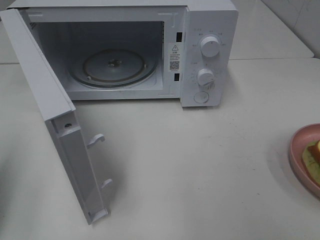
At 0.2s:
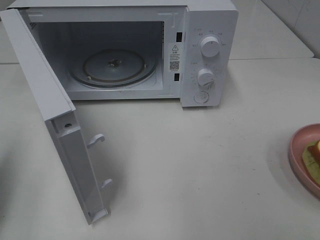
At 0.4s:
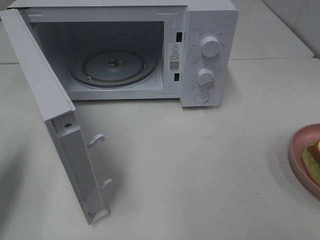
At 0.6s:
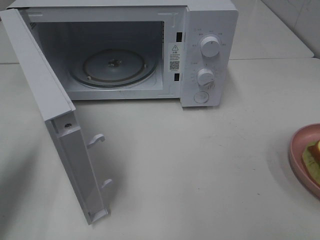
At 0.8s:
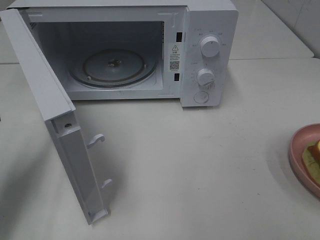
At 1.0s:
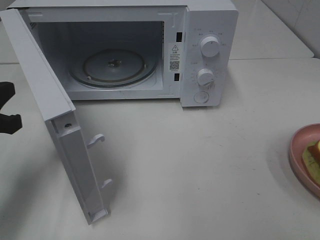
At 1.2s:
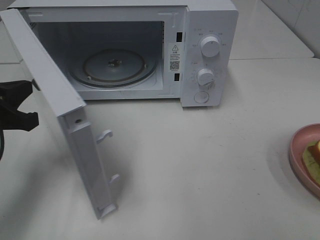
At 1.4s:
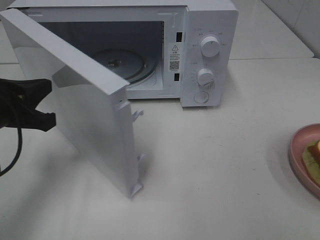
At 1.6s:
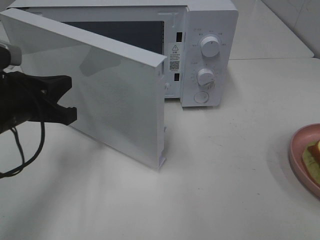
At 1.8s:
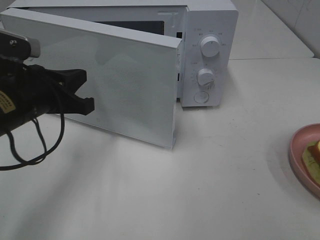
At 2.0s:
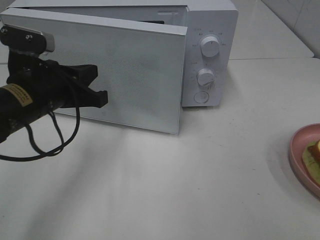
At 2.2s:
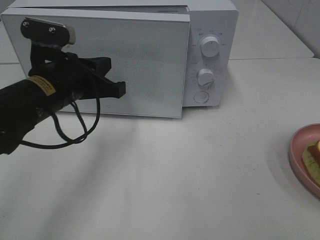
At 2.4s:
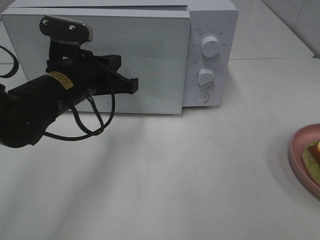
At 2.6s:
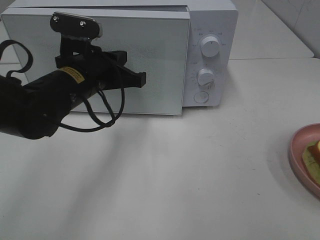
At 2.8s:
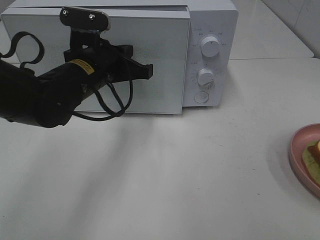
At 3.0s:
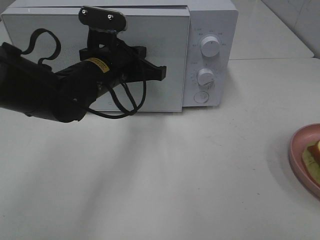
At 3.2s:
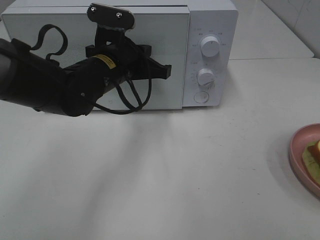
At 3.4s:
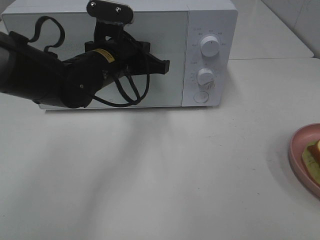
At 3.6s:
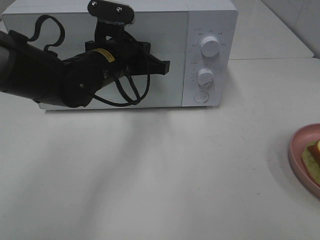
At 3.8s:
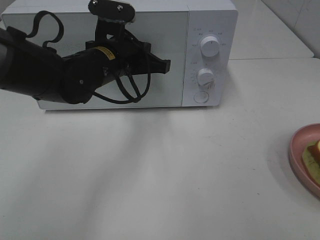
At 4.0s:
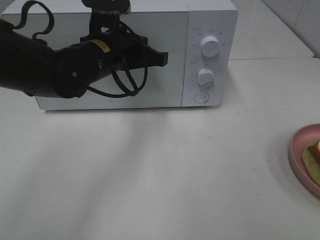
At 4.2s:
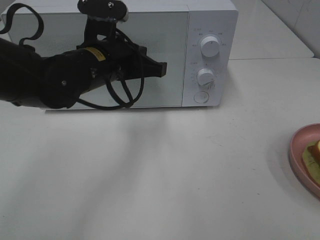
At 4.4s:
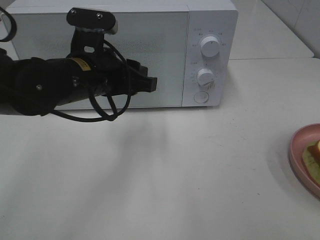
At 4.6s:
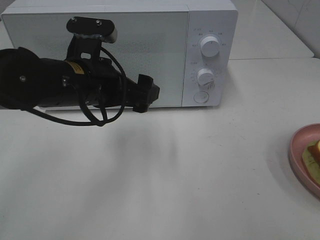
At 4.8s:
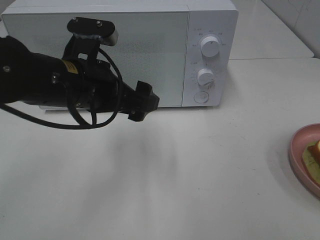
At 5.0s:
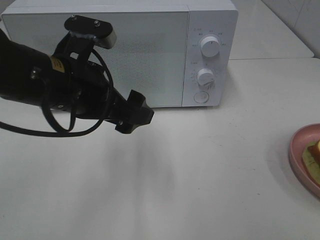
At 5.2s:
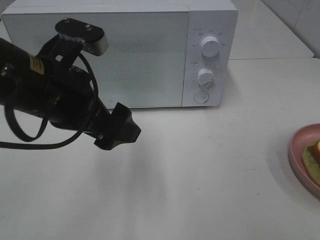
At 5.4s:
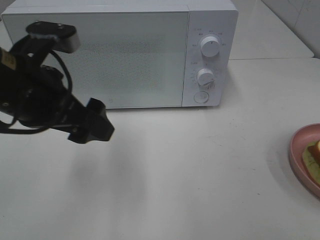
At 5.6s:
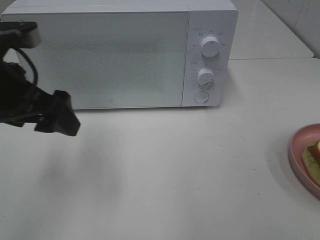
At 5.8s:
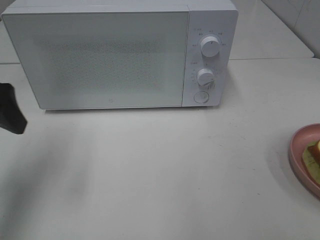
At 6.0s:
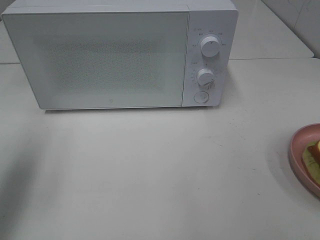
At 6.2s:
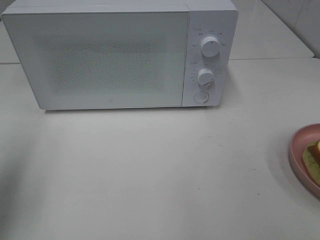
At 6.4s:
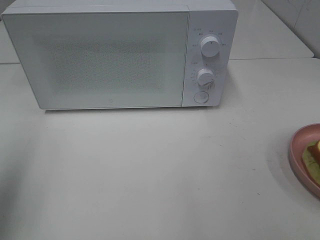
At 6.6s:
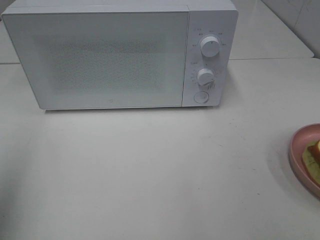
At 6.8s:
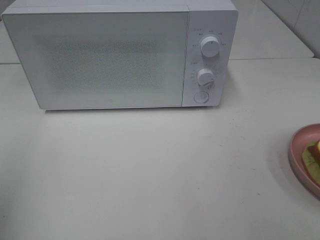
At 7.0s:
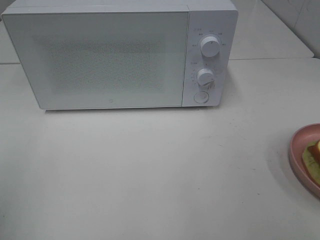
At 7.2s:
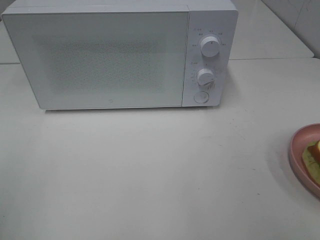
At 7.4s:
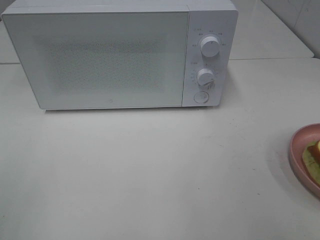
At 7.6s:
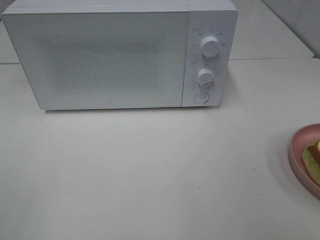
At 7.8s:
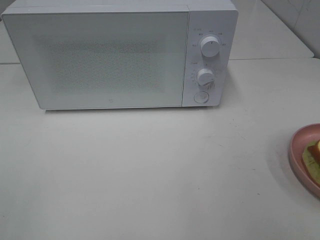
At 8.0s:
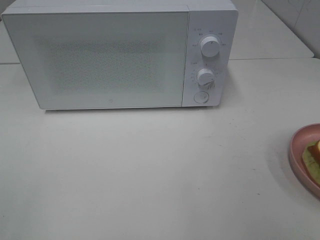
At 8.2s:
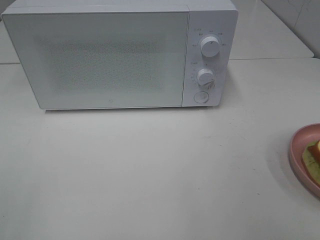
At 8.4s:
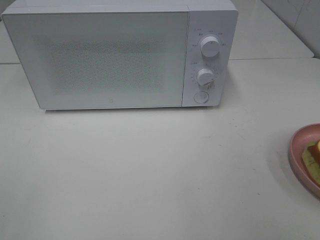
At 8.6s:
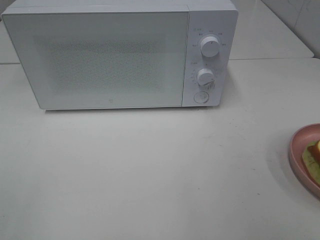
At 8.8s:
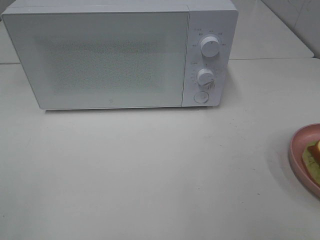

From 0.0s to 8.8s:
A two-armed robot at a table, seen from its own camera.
Task of the whole recording: Heat Sandwich.
Step, from 0.0s to 4.2s: Left hand: close the microwave door.
From 0.0s to 1.4s: The left gripper is displaced to the right, forward and downward by about 15 cm.
From 1.4s to 3.0s: The left gripper goes roughly 20 cm to the right and forward.
From 3.0s to 4.4s: The left gripper ends up roughly 5 cm from where it was, and opens.
From 4.4s to 5.8s: The left gripper heads to the left and upward, covering about 20 cm, and opens its fingers.
From 5.8s to 7.4s: The left gripper goes some 20 cm backward.

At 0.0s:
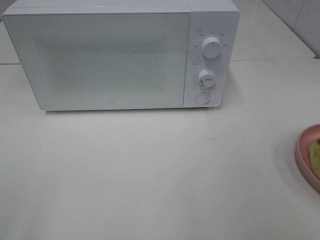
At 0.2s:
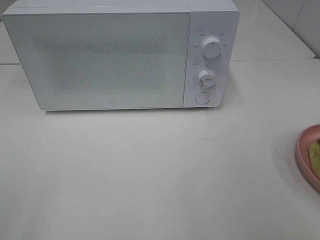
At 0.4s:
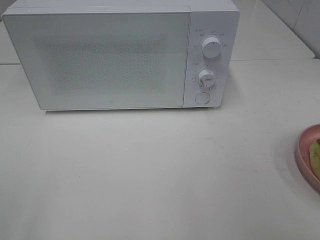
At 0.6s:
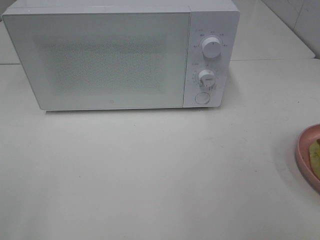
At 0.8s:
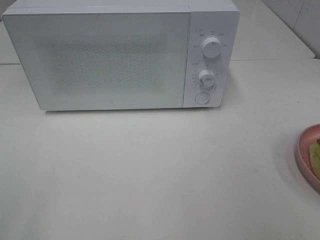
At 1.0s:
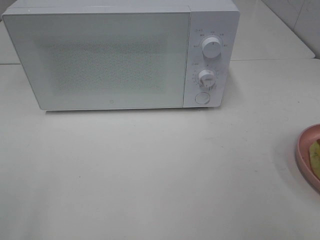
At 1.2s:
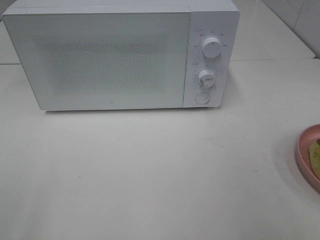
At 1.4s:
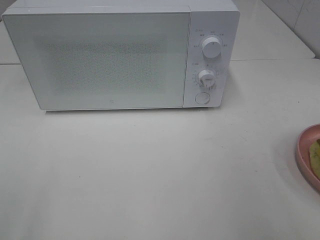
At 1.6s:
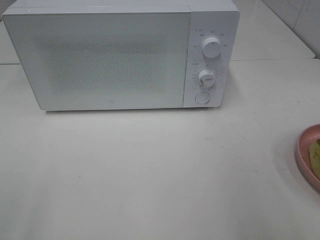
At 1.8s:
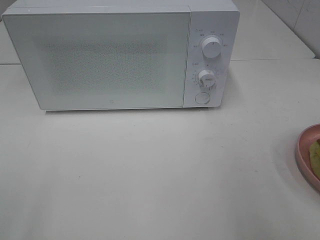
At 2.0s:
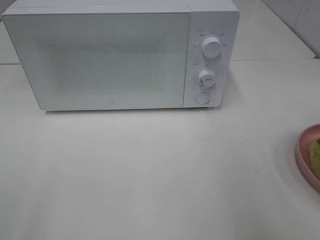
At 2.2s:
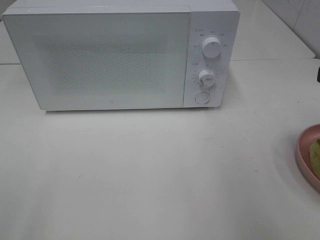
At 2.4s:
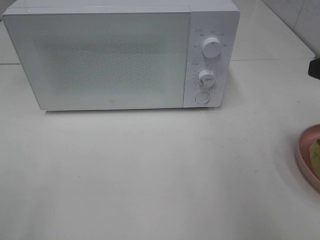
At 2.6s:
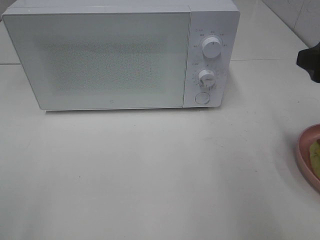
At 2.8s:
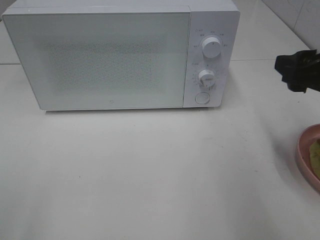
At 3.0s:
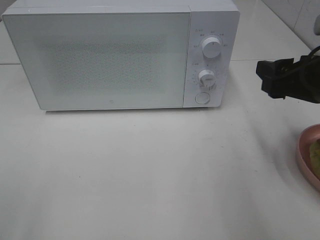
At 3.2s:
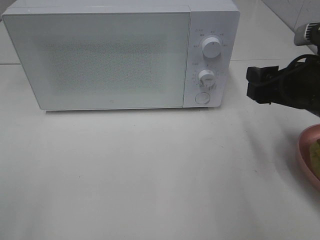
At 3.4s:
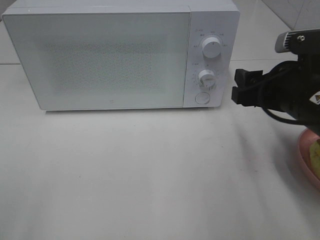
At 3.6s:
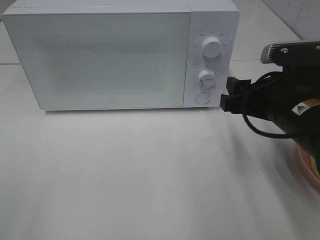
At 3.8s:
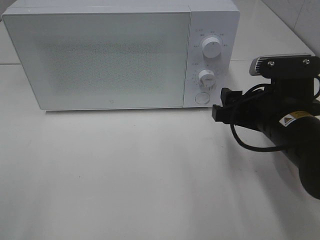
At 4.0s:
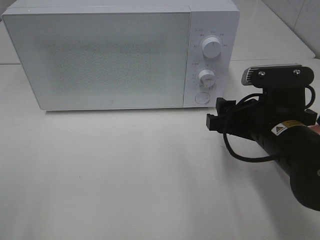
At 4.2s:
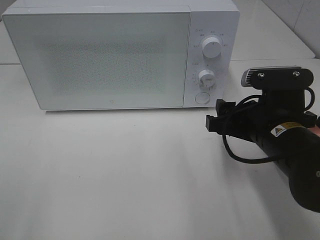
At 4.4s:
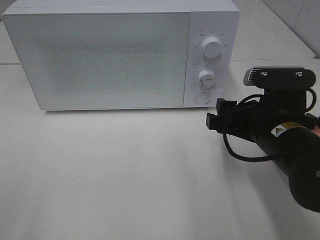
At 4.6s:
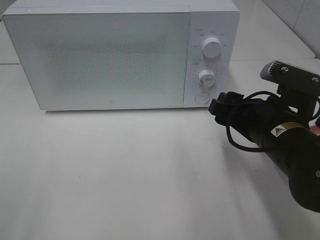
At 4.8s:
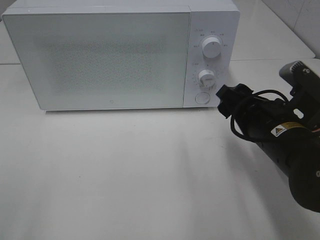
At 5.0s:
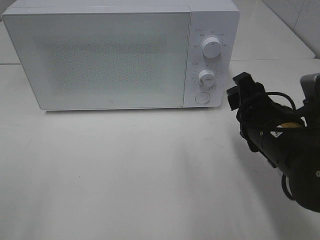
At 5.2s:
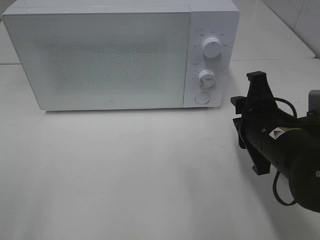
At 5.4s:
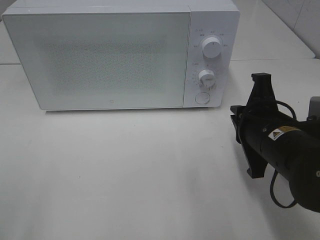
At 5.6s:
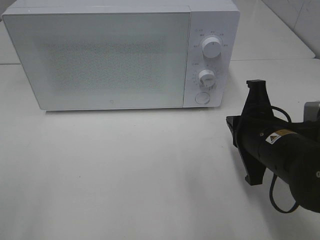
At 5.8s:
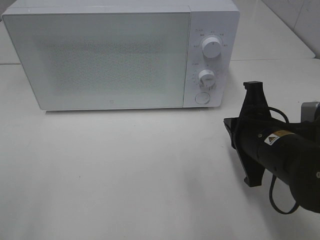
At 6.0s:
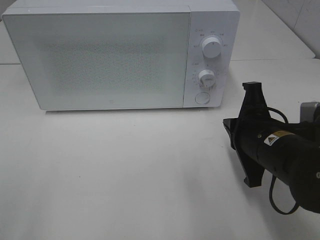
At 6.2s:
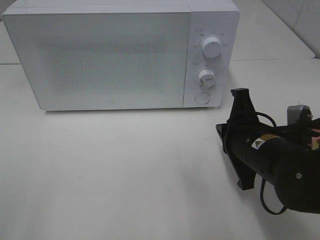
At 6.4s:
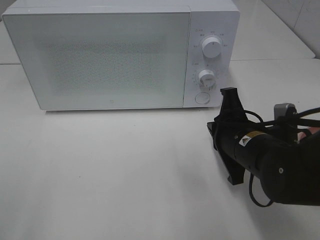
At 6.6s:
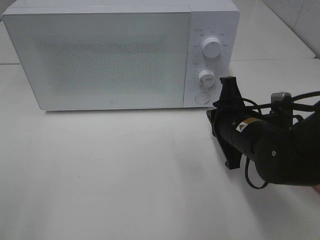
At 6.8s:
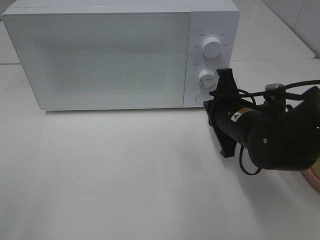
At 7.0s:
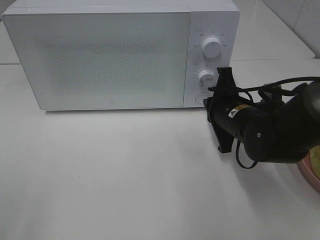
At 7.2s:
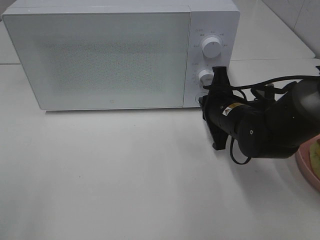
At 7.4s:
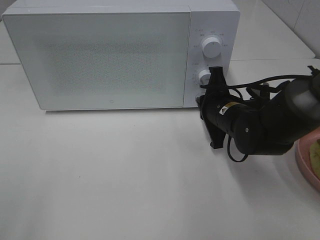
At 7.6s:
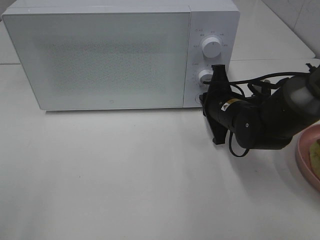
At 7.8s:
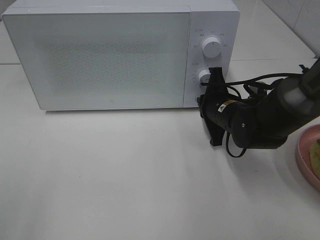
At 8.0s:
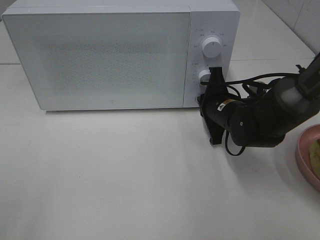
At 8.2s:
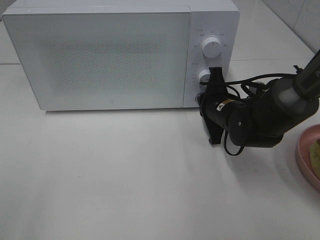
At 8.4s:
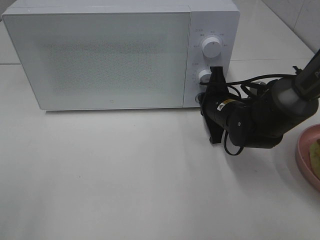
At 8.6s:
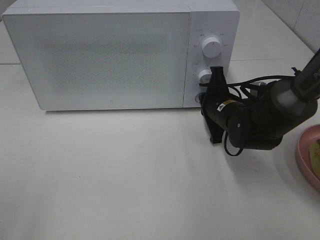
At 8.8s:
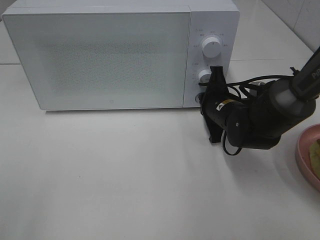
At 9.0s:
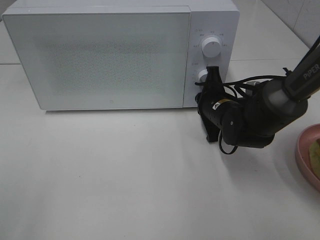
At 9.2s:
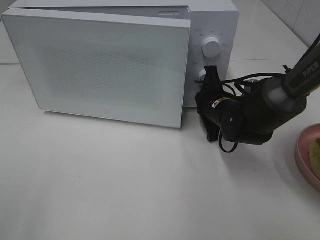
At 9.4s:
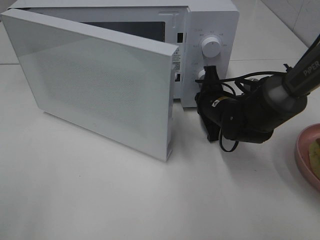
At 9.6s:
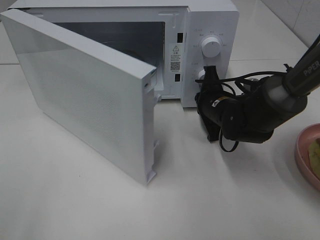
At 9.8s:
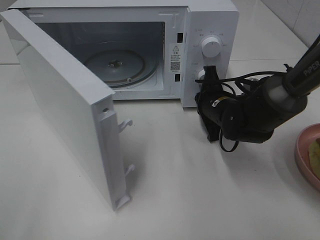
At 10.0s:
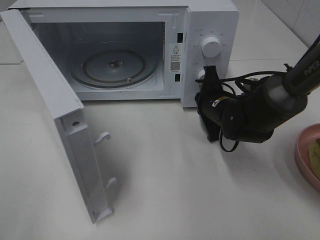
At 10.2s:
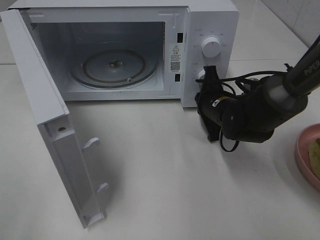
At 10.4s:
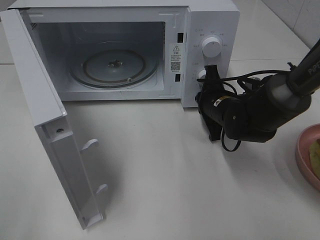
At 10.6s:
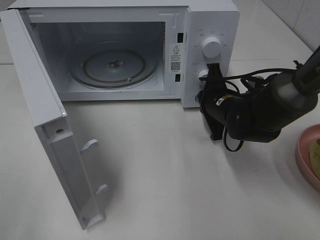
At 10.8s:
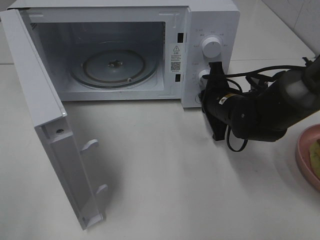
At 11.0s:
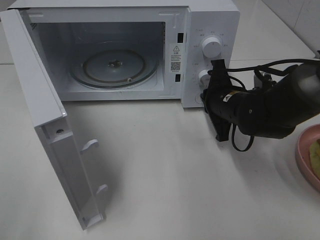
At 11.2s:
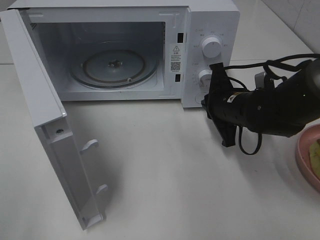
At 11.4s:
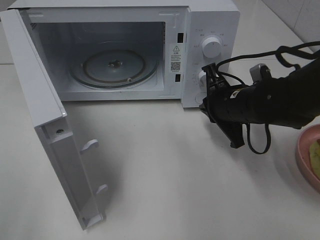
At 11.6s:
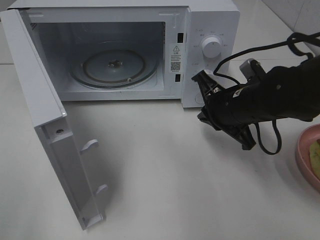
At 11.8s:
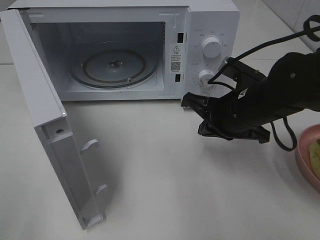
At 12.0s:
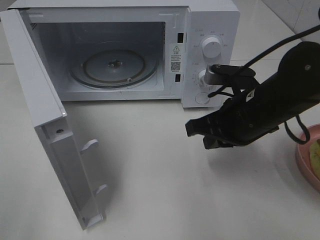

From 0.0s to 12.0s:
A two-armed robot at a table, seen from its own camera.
Task of the whole recording: Heat Sandwich.
Step, from 0.0s to 11.4s: Right hand: press the switch.
From 1.6s to 3.0s: The right gripper shifts roughly 15 cm forward and downward.
From 3.0s to 4.4s: The right gripper heads to the left and downward, covering about 10 cm.
From 4.4s to 6.0s: The right gripper closes.
From 6.0s to 7.6s: The right gripper shifts approximately 10 cm forward.
From 7.6s to 9.0s: The grippers stay close to where they were, moving slightly.
From 10.4s to 12.0s: The right gripper travels backward and upward by approximately 15 cm.

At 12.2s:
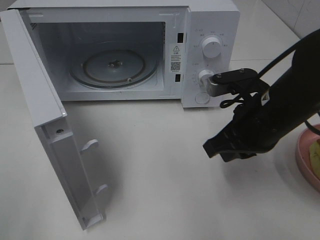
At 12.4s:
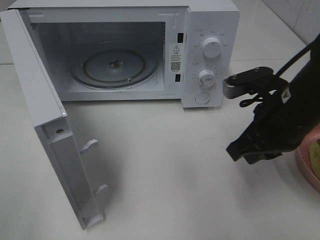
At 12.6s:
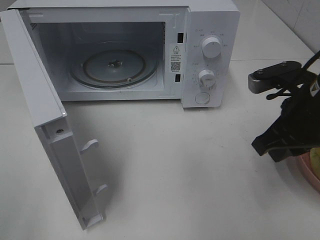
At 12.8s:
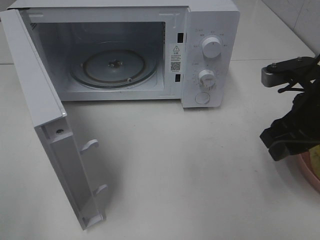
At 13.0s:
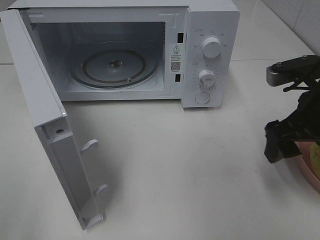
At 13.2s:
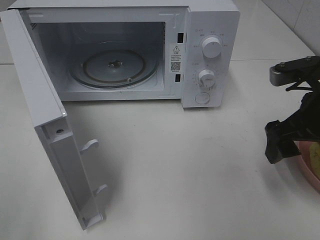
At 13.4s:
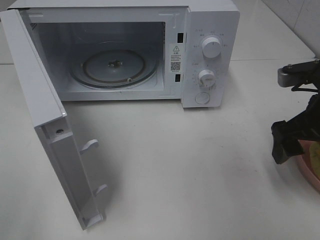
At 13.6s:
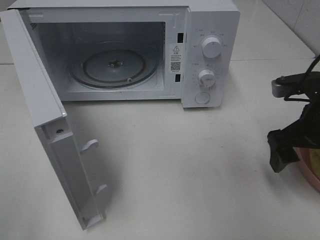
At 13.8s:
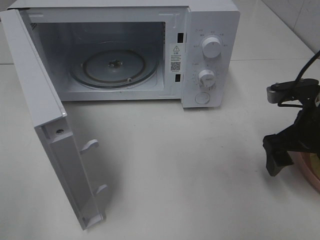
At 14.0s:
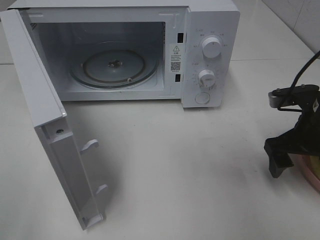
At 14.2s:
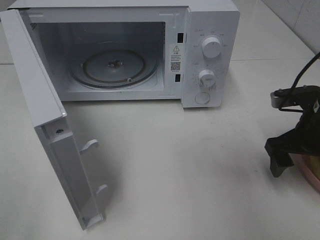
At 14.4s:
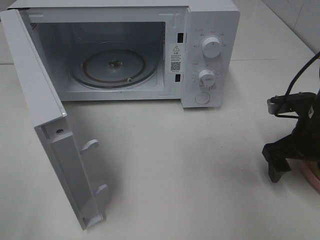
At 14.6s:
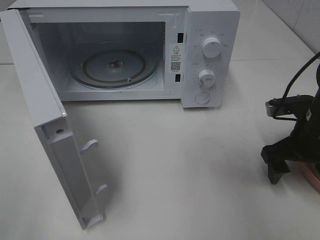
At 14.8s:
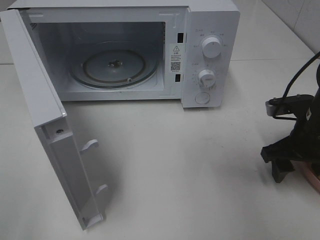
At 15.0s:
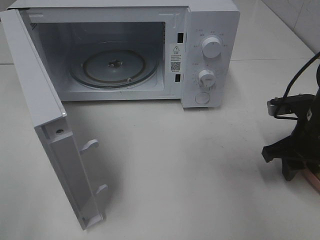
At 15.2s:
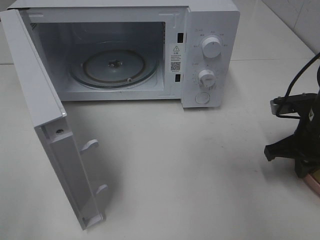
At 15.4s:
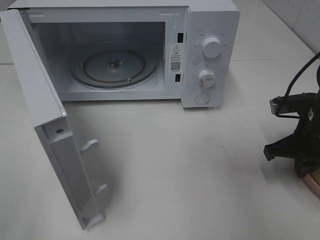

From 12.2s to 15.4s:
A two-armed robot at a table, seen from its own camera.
Task of the whole recording: Heat Sandwich.
From 12.2s to 13.8s: The right gripper goes approximately 10 cm to the right, and opens up.
From 13.8s to 15.4s: The right gripper closes.
